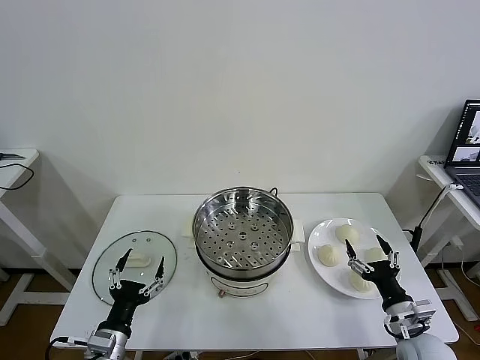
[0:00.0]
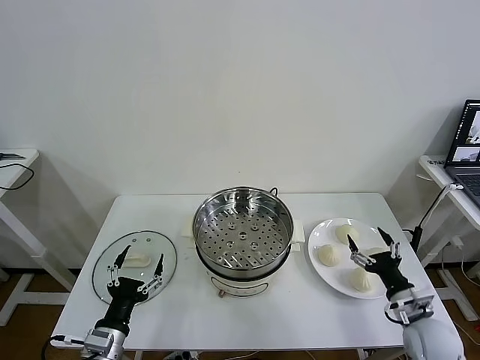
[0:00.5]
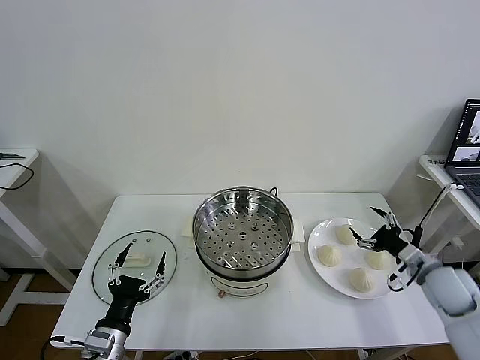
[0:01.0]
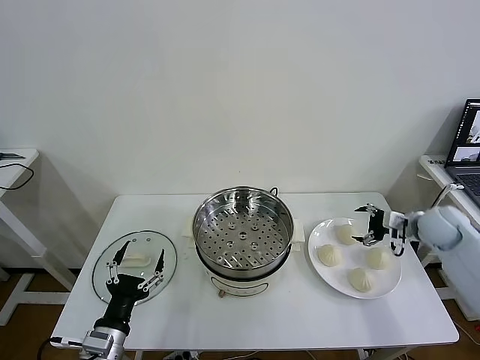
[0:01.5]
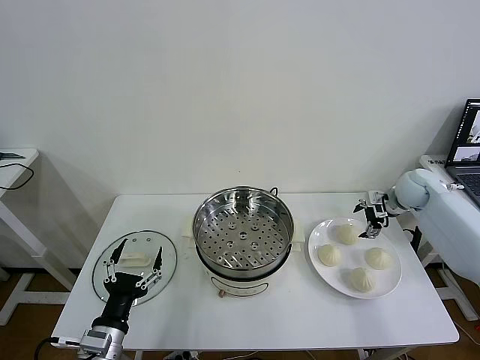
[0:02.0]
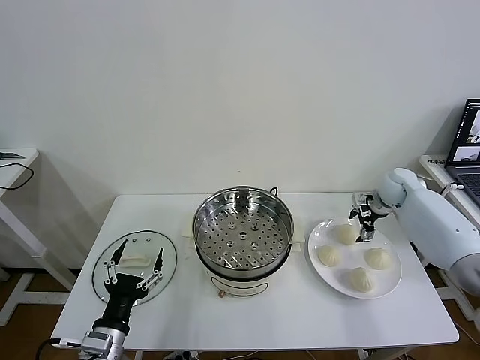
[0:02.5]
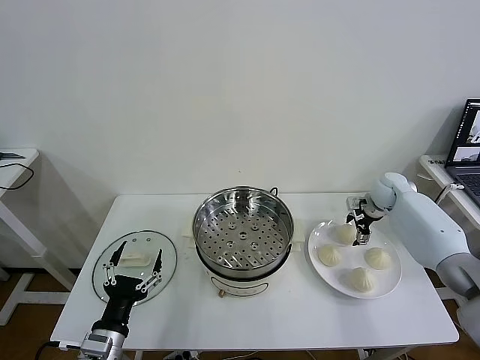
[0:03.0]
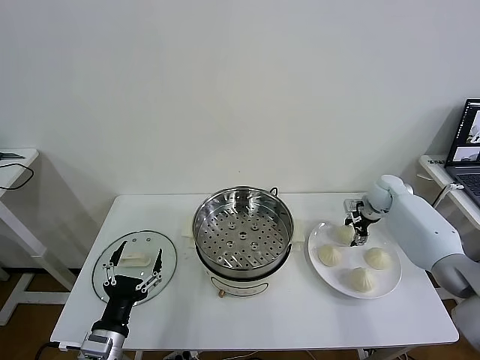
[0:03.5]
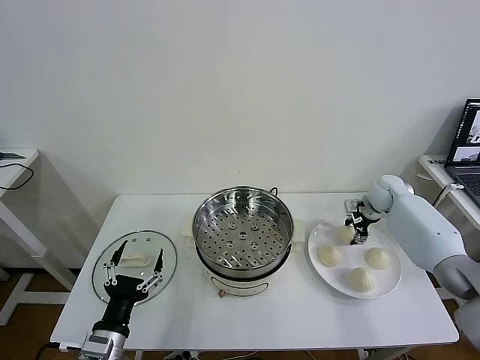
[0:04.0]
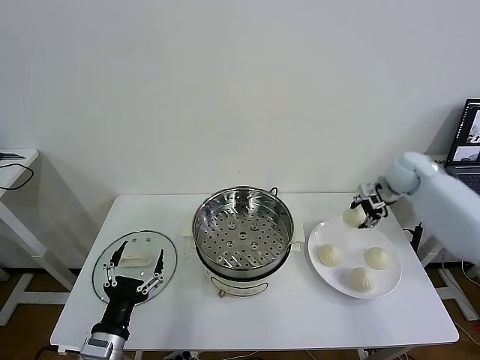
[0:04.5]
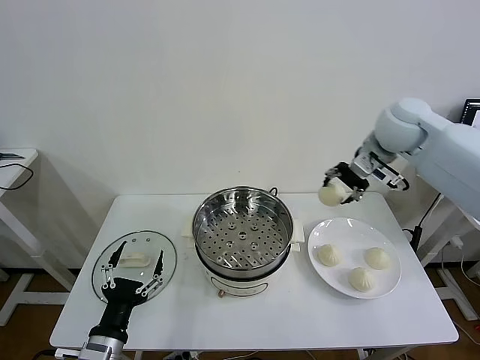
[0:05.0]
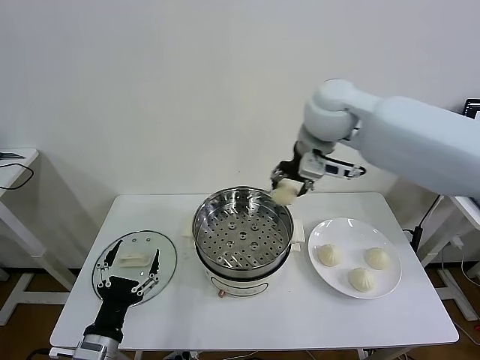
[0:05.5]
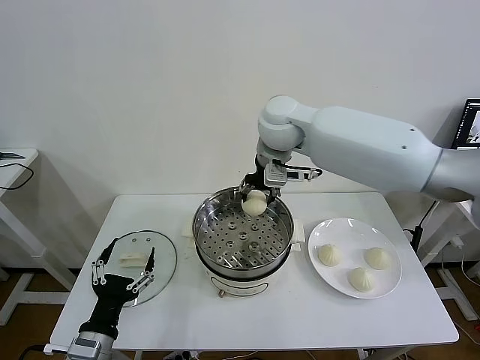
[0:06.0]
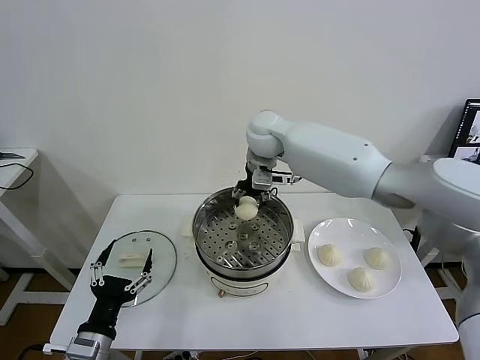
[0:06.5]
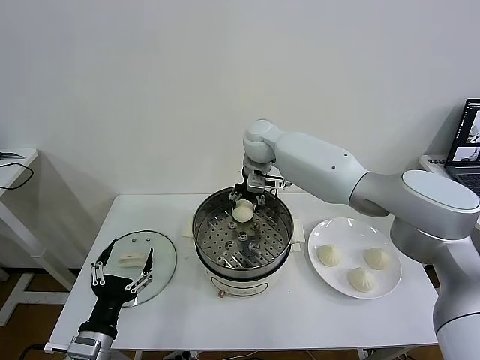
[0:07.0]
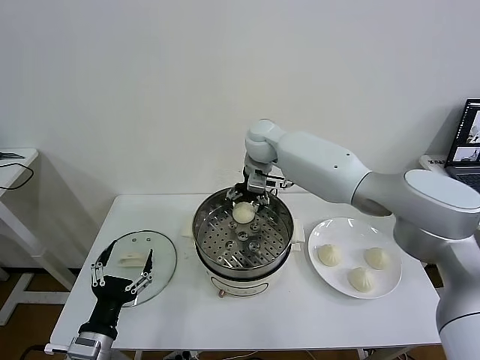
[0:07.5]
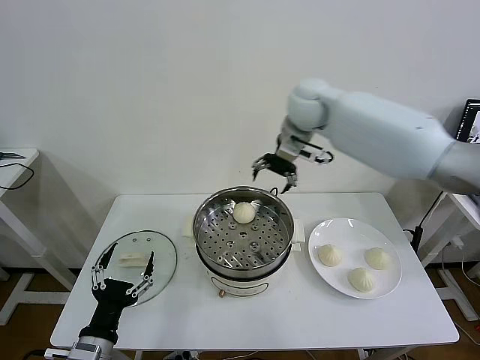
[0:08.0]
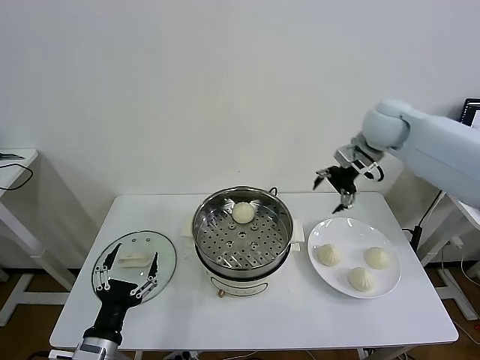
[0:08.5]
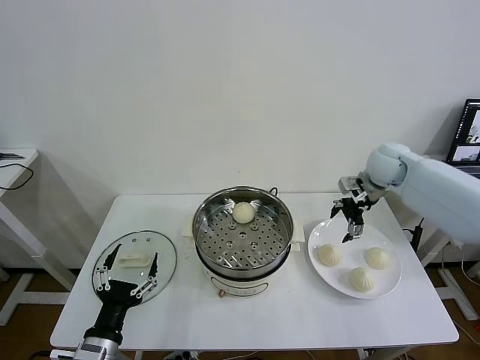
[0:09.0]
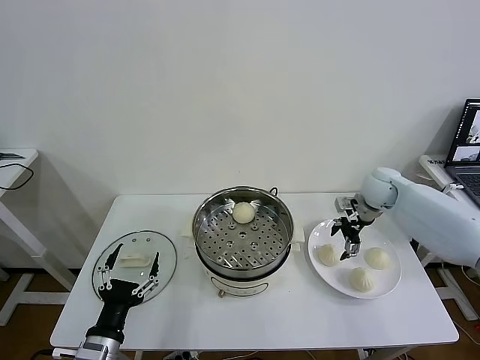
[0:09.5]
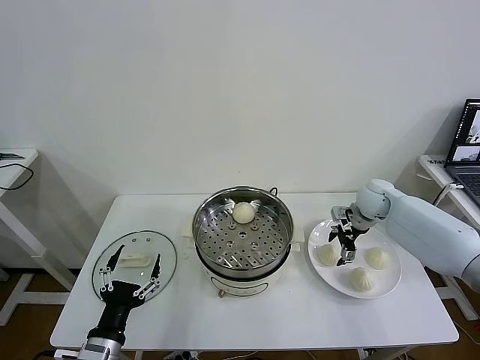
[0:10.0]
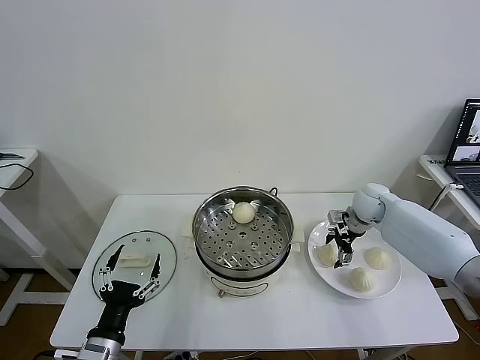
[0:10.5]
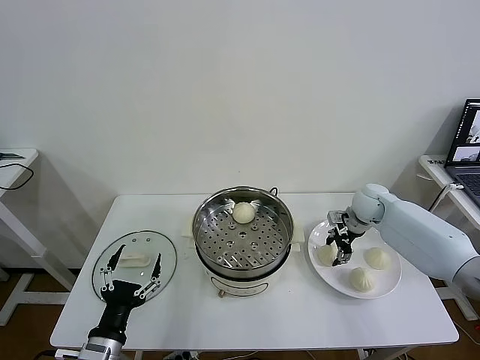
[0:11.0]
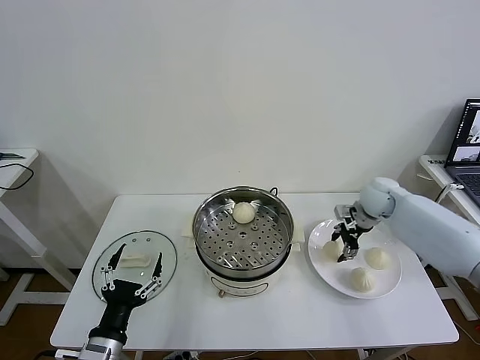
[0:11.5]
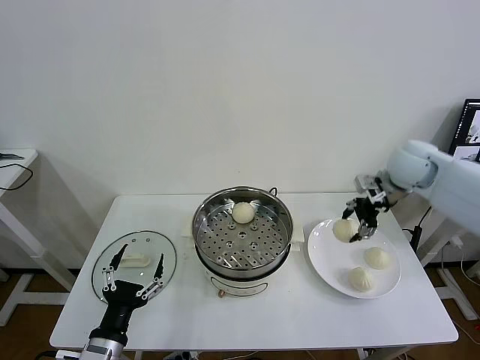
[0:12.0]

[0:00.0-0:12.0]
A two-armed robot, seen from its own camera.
Task of the whole recording: take steamed baozi put them in steamer then cover it.
Step, 0:00.0 to 0:03.5: Grasp the baozi in the plate with right gripper.
Step, 0:04.0 to 0:07.0: Place the baozi on the steamer with right gripper.
Step, 0:07.5 to 0:11.0: Grasp the baozi in the plate with right gripper.
0:02.0 to 0:04.0: The right gripper changes place by approximately 5 cm, and closes up.
0:04.0 to 0:06.0: The right gripper shifts some 40 cm to the left and upward.
0:06.0 to 0:08.0: The right gripper moves to the right, approximately 10 cm, and opens its fingers.
0:08.0 to 0:10.0: The right gripper moves downward and to the right, approximately 30 cm.
0:10.0 to 0:12.0: The right gripper shifts roughly 15 cm upward, and closes its fingers.

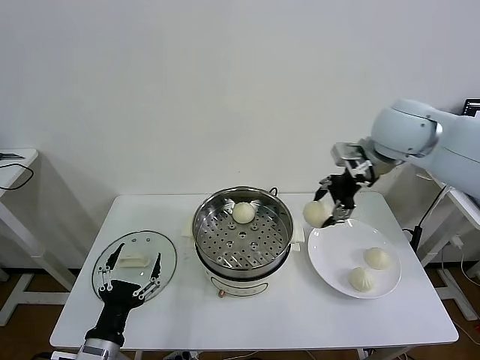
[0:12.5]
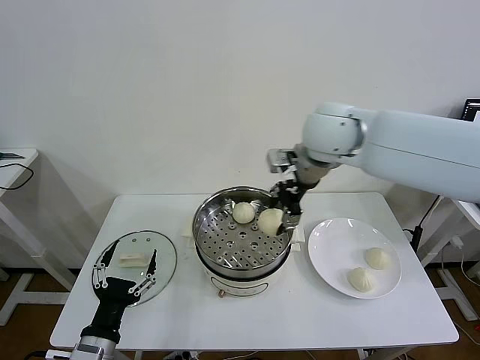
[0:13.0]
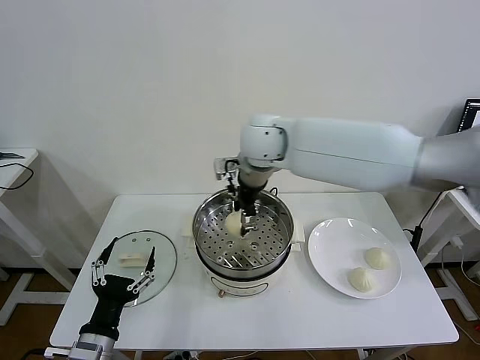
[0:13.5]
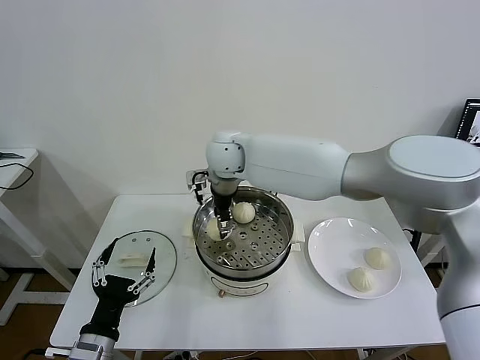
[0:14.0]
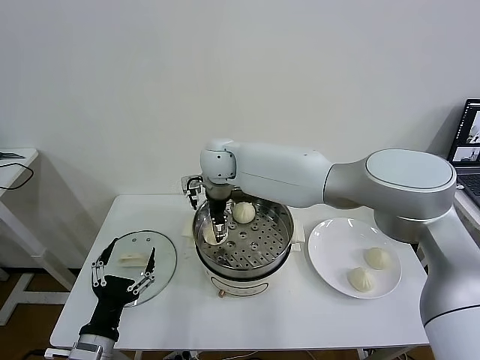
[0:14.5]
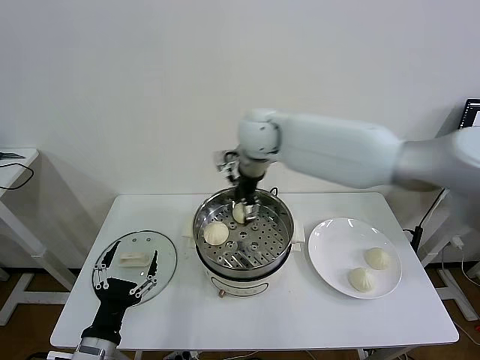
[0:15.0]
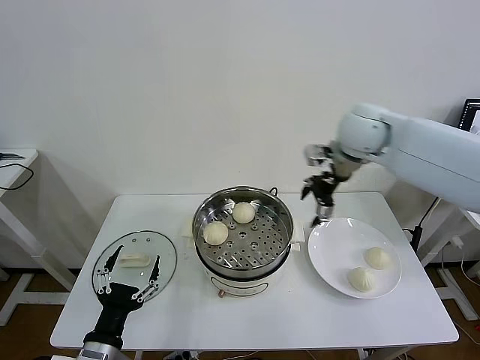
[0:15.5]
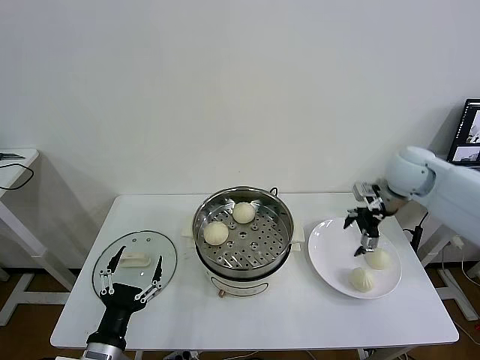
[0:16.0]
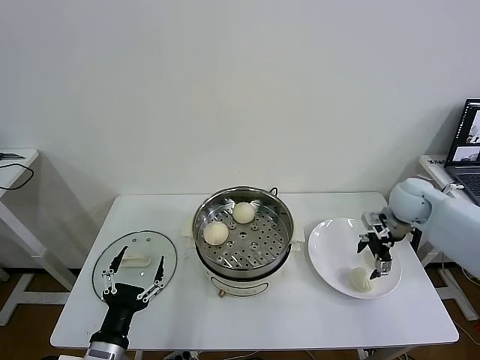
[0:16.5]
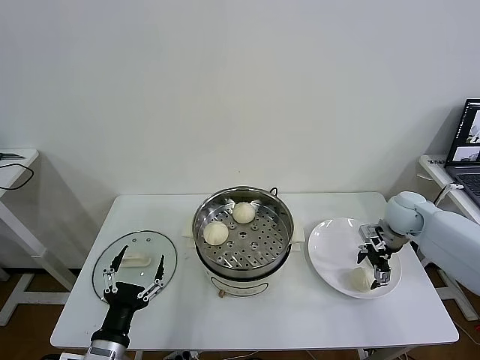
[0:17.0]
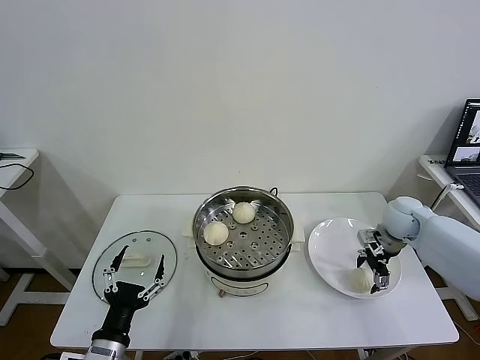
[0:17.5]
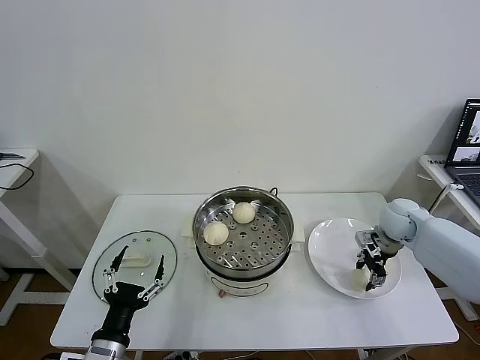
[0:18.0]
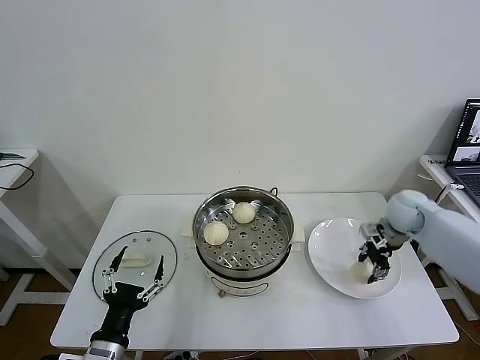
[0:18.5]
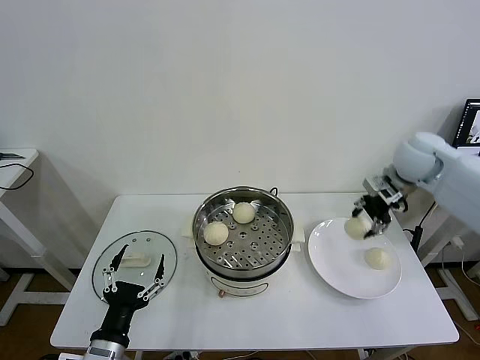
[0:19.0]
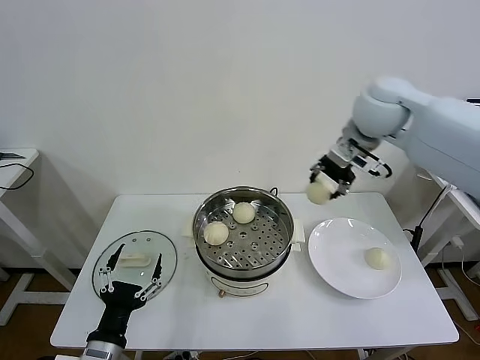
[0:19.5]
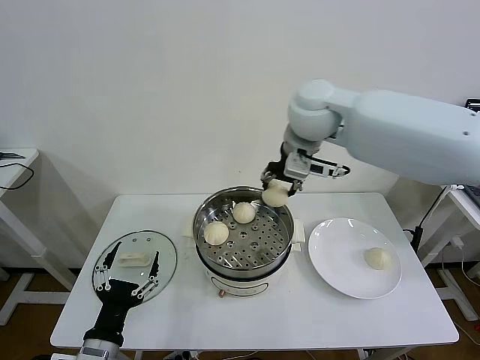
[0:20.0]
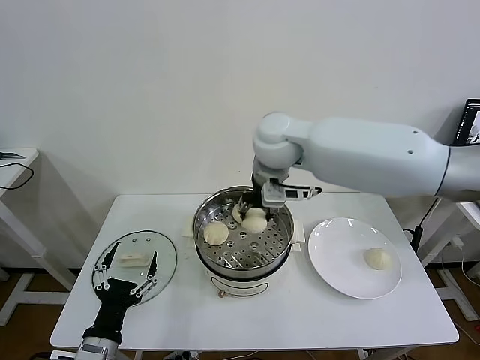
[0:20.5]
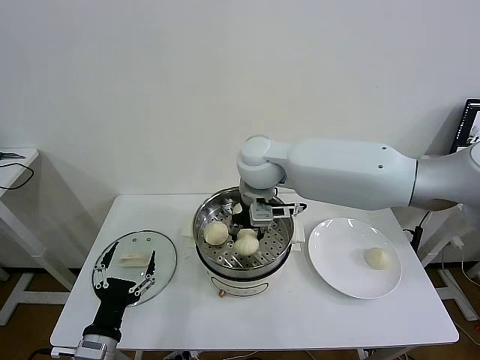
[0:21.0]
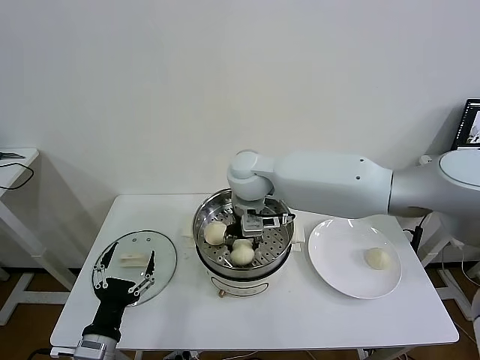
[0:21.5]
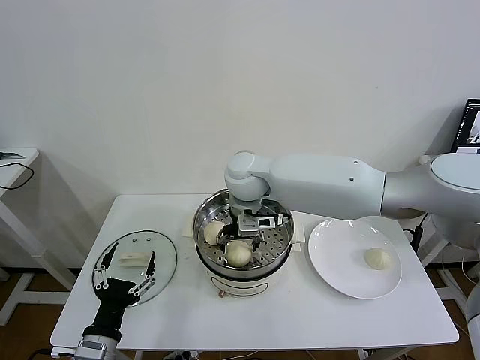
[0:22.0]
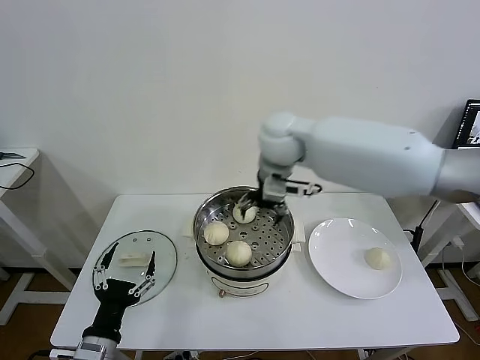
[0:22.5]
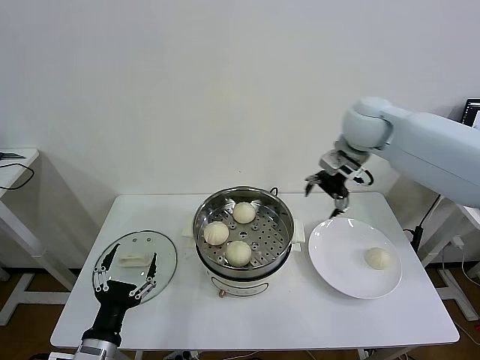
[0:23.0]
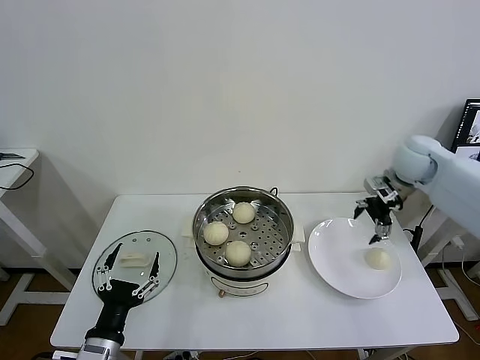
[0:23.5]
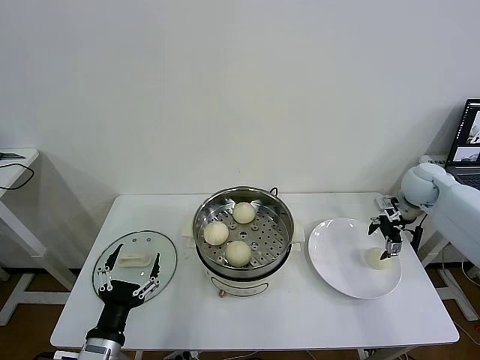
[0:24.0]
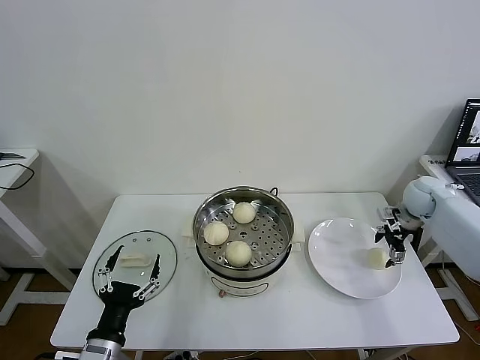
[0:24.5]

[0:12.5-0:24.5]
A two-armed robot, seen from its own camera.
Task of the whole recording: take steamed baozi put them in steamer then cover it.
Step, 0:12.5 to 0:14.5: Place the baozi on the steamer with right gripper.
Step, 0:15.0 to 0:18.0: Grasp the baozi in the plate with right gripper.
Step, 0:18.5 to 0:22.0: Place the baozi on the steamer with right gripper.
0:12.5 to 0:14.5: The right gripper heads to the left and downward, covering roughly 30 cm, and opens up.
0:14.5 to 0:16.5: The right gripper is displaced to the right by approximately 40 cm.
0:16.5 to 0:18.5: The right gripper closes up.
0:18.5 to 0:20.5: The right gripper is displaced to the left and upward by roughly 40 cm.
0:20.5 to 0:22.5: The right gripper moves some 10 cm downward and comes back, and opens.
0:22.5 to 0:24.5: The right gripper moves to the right and downward, some 40 cm.

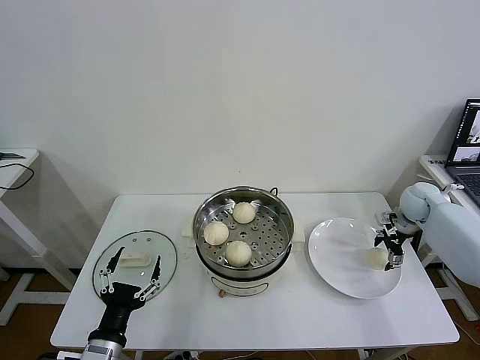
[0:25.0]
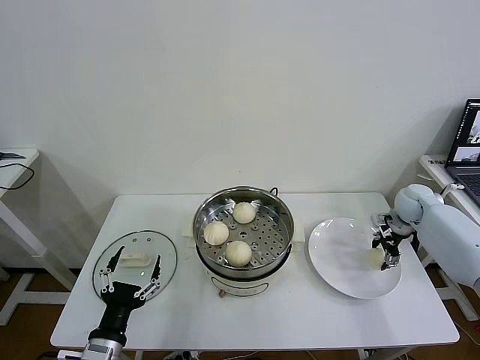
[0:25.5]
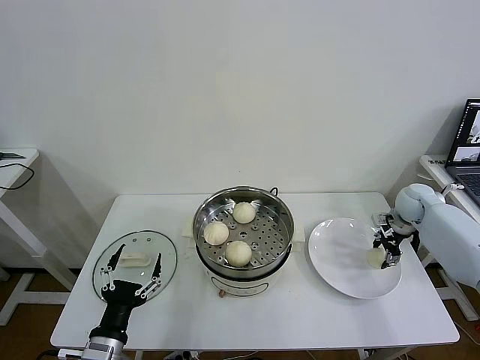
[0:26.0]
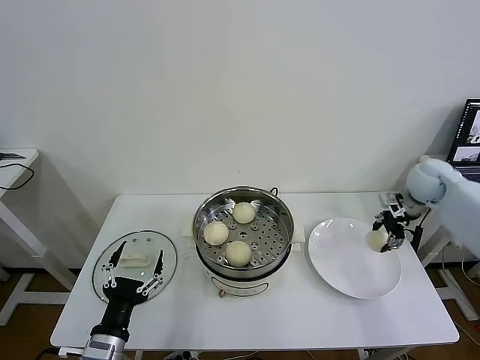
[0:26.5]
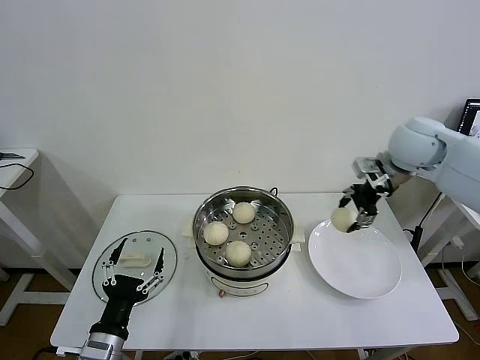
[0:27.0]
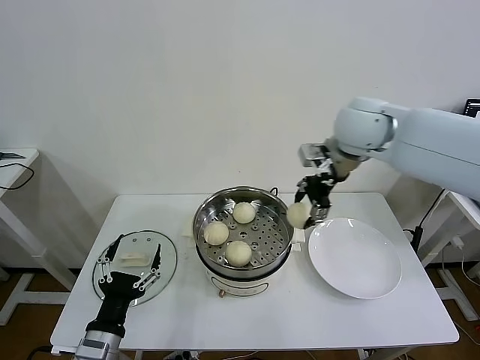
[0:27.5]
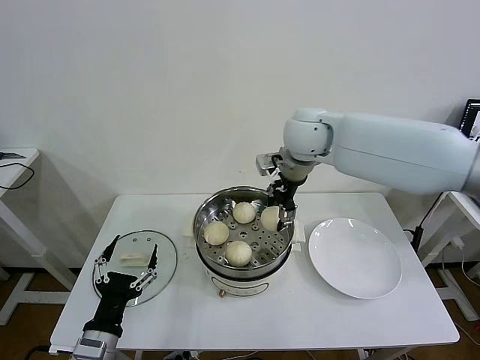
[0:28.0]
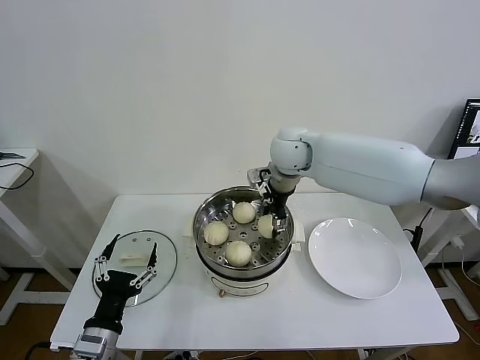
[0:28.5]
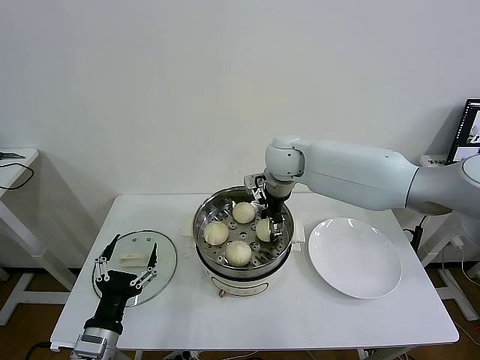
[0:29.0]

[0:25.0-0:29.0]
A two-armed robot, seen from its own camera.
Task of the whole recording: take steamed baozi put them in steamer then cover it.
0:25.0 to 0:27.0: The right gripper goes approximately 25 cm upward and to the left, and closes its fingers.
0:27.0 to 0:29.0: The right gripper heads to the left, covering about 25 cm.
